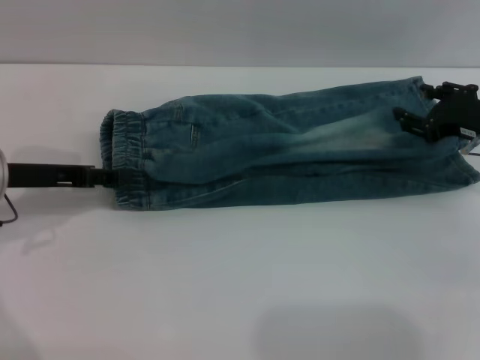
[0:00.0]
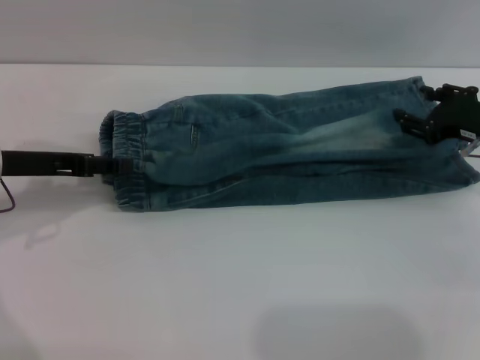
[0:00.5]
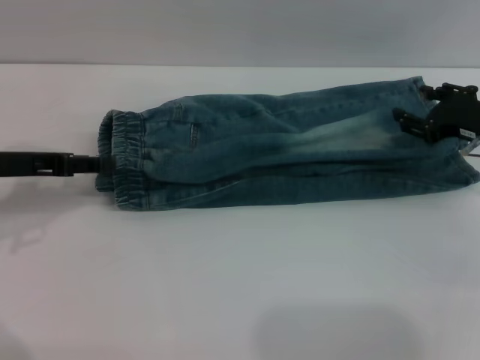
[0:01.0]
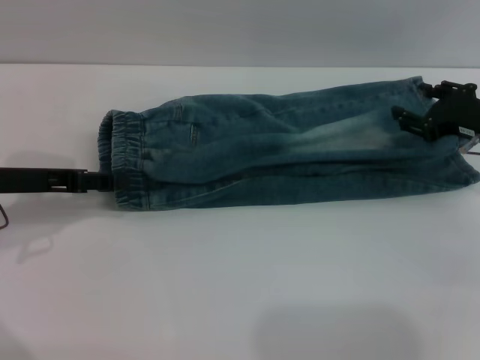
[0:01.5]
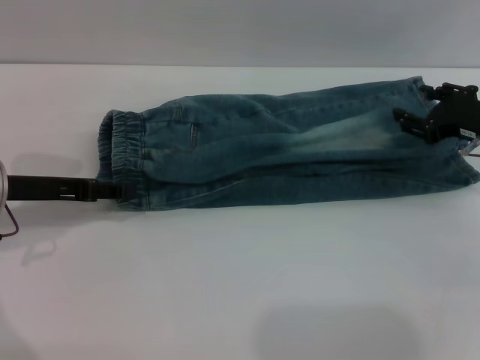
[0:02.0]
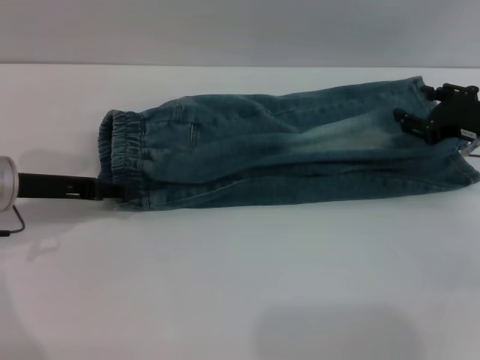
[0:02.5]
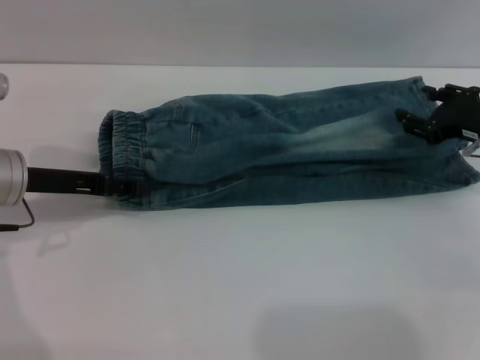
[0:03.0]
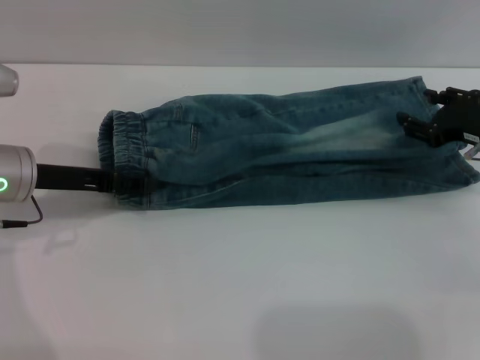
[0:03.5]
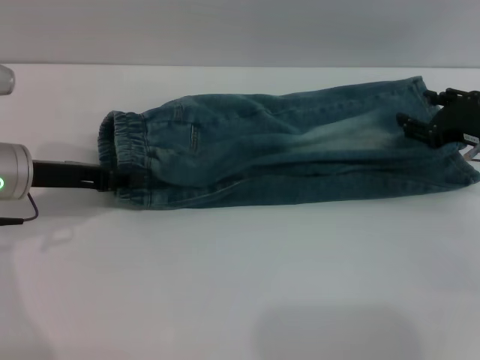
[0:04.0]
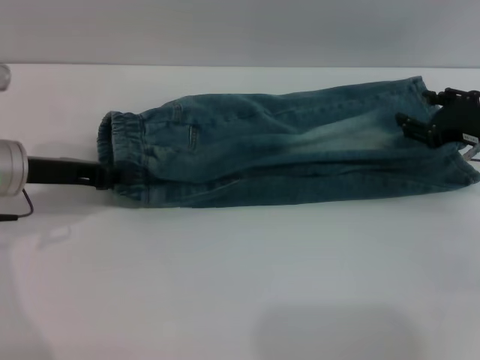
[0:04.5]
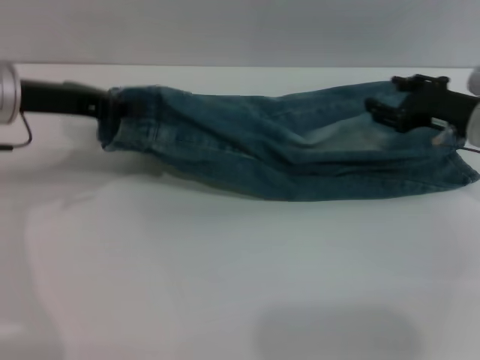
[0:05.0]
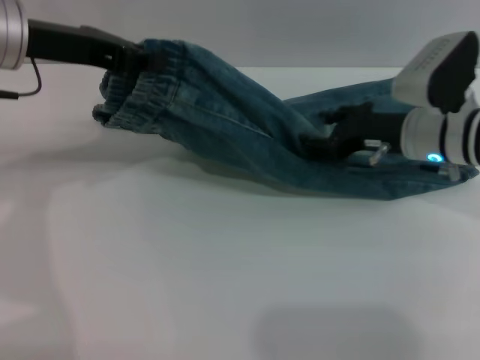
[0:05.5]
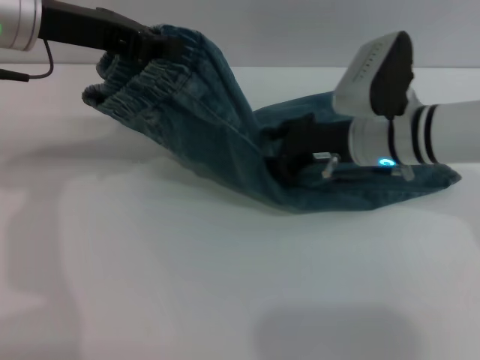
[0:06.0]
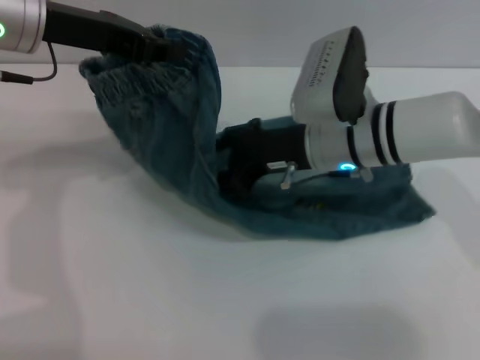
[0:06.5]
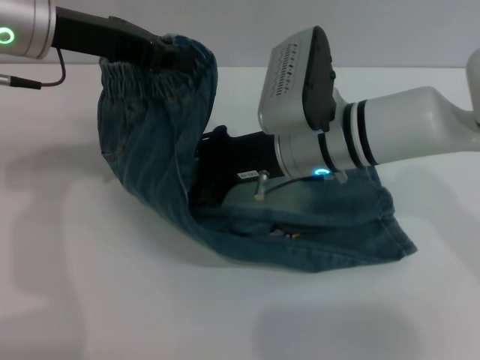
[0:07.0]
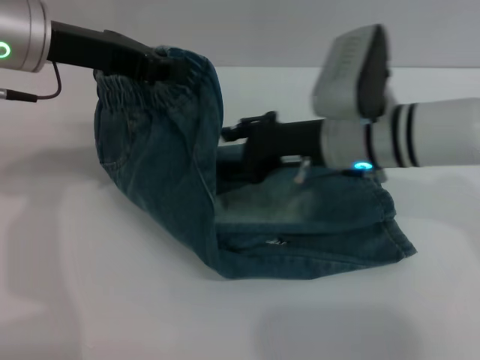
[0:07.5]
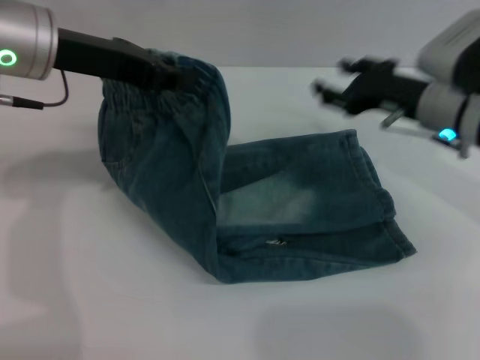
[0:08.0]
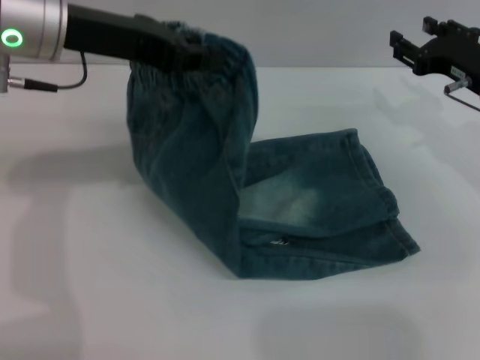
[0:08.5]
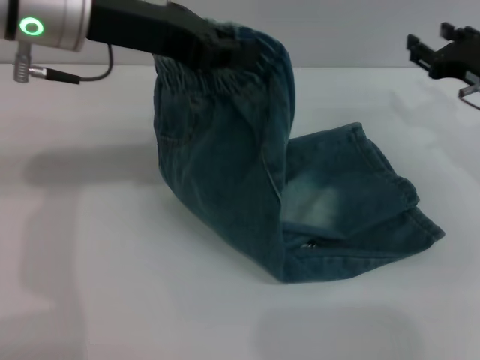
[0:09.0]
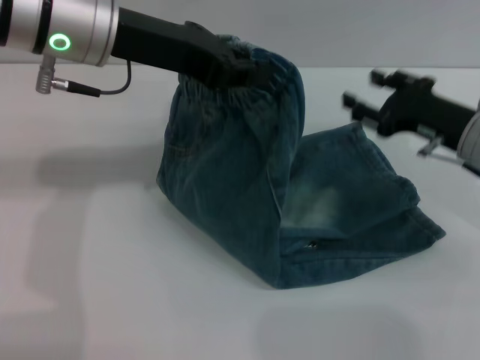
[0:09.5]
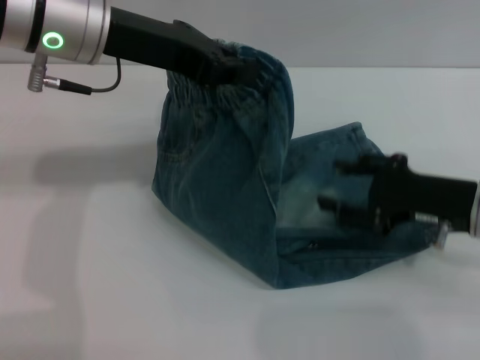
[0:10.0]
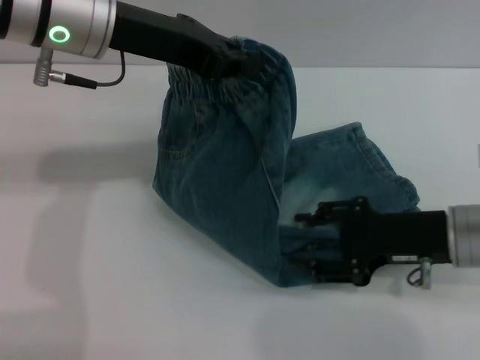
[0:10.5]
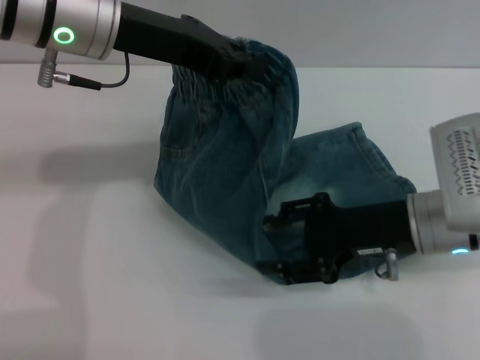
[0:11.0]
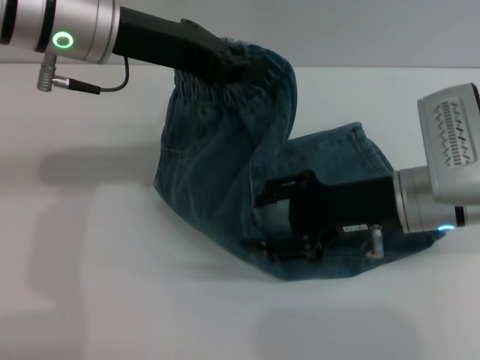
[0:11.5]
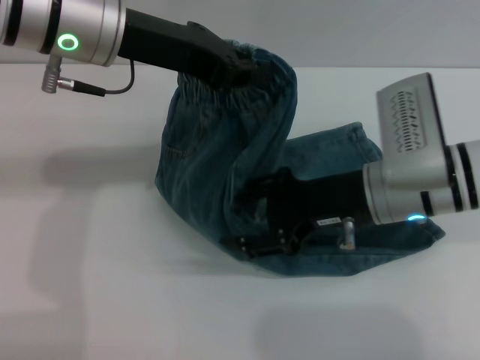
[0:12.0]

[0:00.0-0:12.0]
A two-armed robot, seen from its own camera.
0:00.0 to 0:04.0: The grippers move only a little.
0:04.0 to 0:06.0: The left gripper travels upward by some 15 cm, and closes; the right gripper travels to the left by roughly 15 cm.
0:06.0 to 0:08.0: The right gripper heads to the right, covering approximately 5 cm.
0:08.0 to 0:10.0: The right gripper travels backward by some 10 cm.
0:10.0 to 0:12.0: The right gripper travels to the left by some 10 cm.

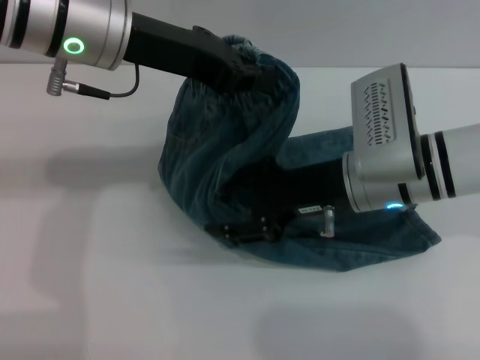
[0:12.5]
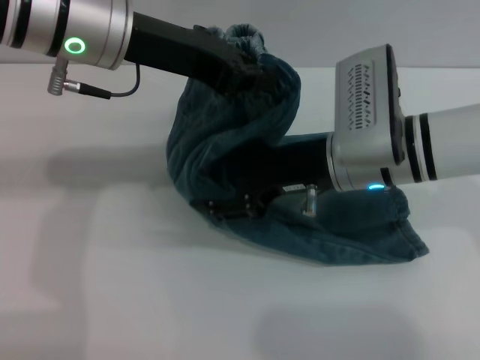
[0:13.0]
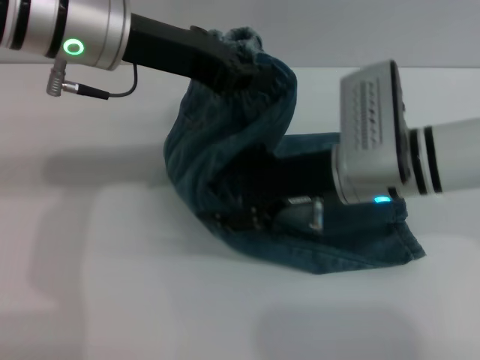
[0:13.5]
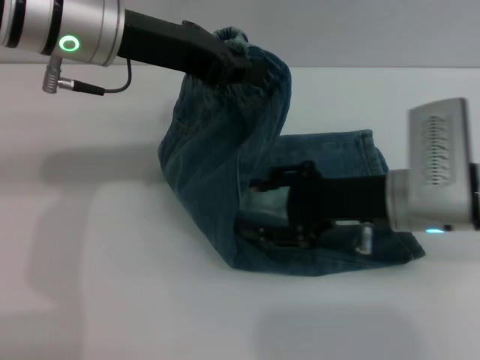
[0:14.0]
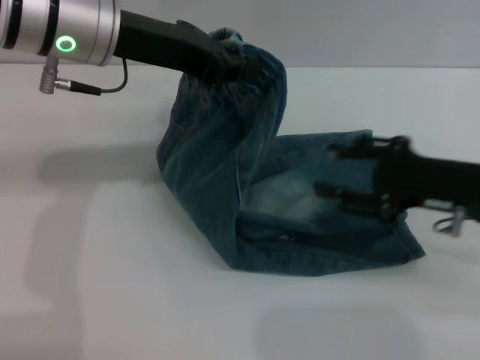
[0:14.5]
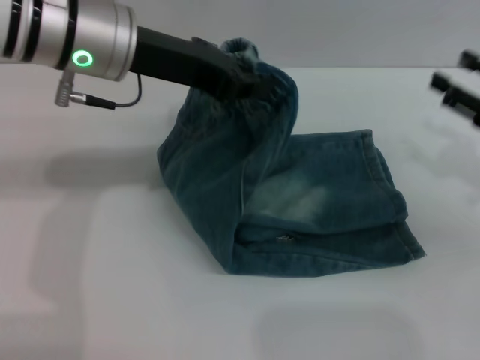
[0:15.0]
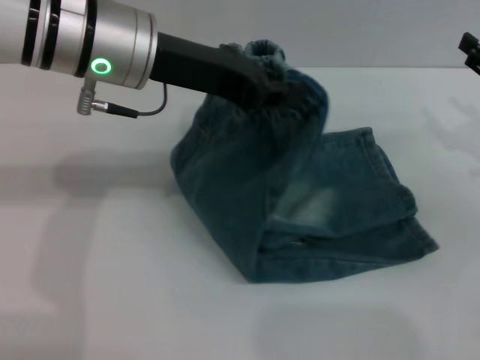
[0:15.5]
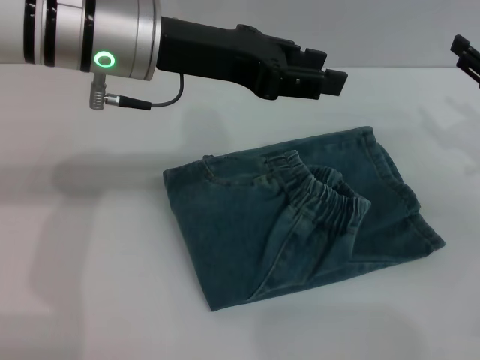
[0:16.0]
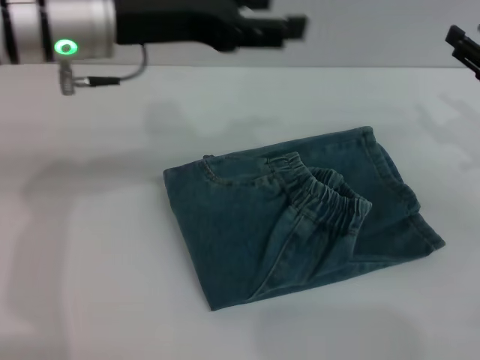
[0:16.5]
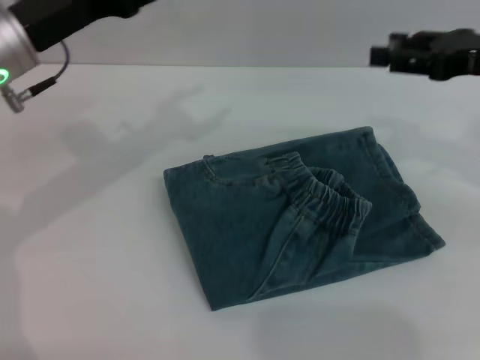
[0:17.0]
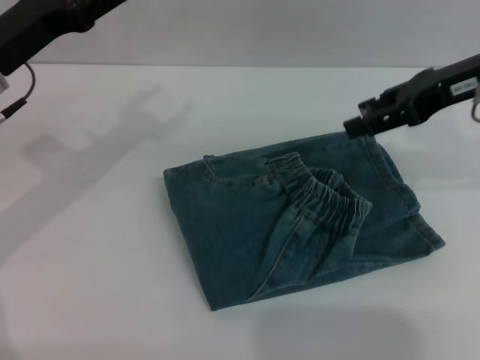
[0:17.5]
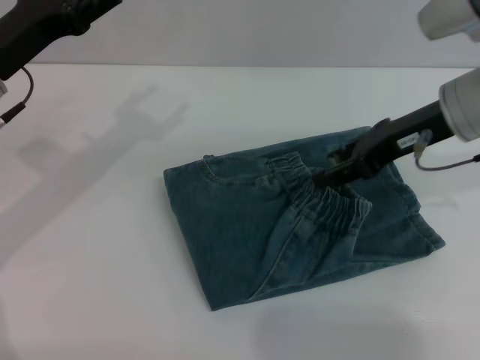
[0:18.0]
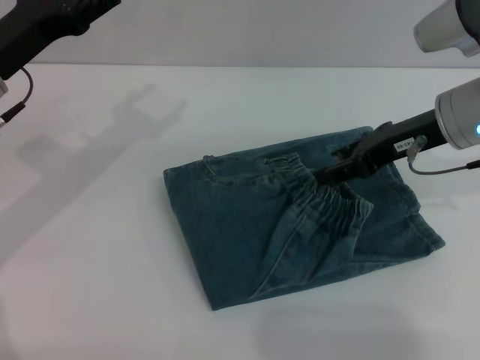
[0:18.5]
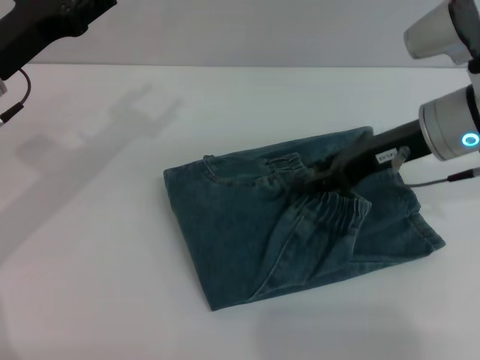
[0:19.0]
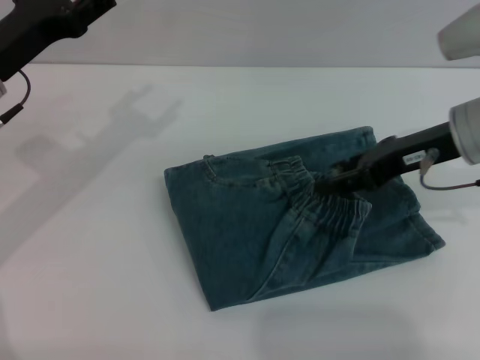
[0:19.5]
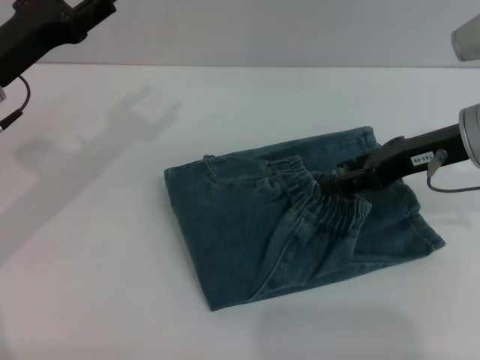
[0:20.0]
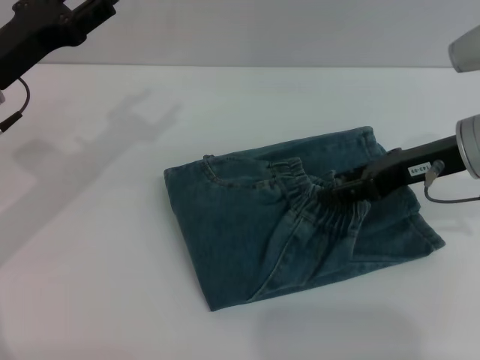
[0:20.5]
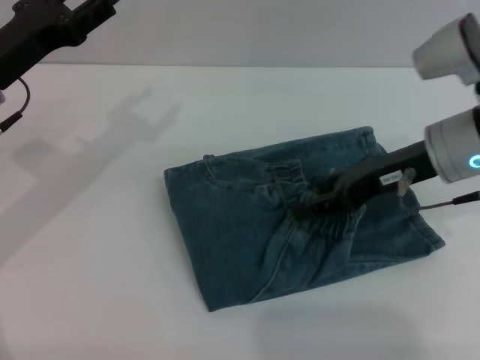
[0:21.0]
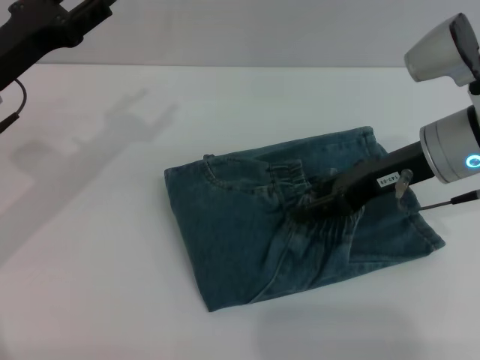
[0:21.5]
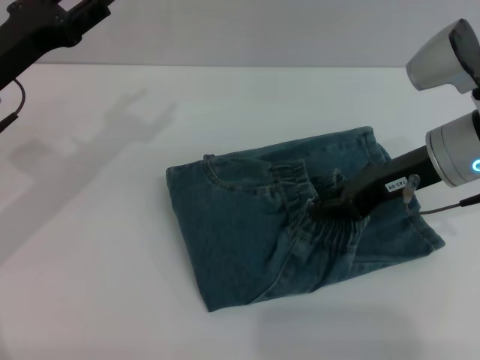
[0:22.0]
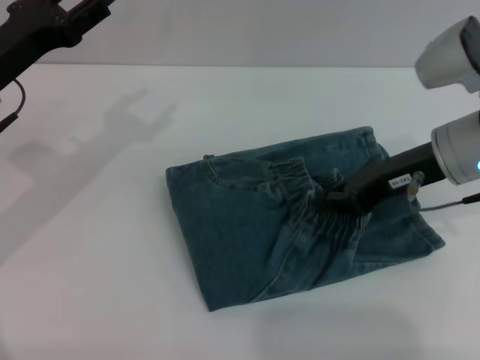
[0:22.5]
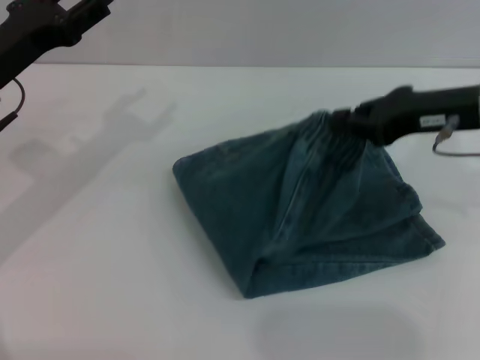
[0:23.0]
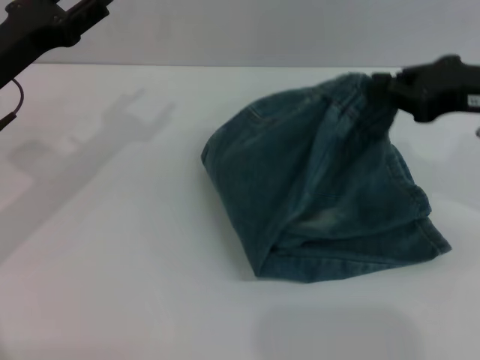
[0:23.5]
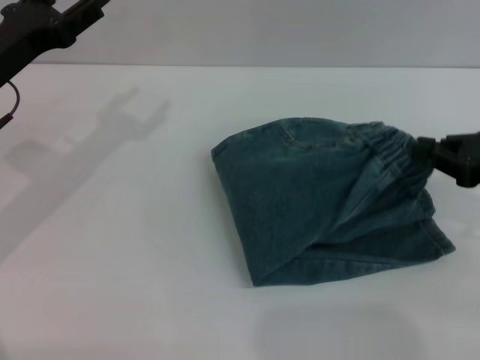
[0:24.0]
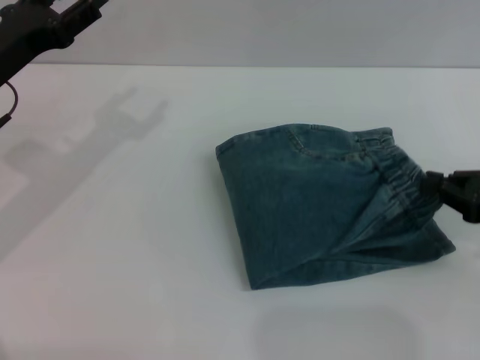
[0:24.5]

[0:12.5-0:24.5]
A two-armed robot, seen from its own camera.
Step, 0:12.5 to 0:15.5: Fold the pants from left to right with the left gripper.
0:12.5 to 0:14.5: The right gripper heads to the right, covering approximately 10 cm.
0:14.5 to 0:16.5: The right gripper shifts about 10 cm to the right and forward. Meanwhile the left gripper opens up.
0:16.5 to 0:18.5: The right gripper moves to the left, about 10 cm; the left gripper travels to the left and downward by about 15 cm.
0:18.5 to 0:20.5: The grippers move only a little.
0:20.5 to 0:22.5: The right gripper closes.
0:22.5 to 0:24.5: The right gripper heads to the right and backward, covering about 15 cm.

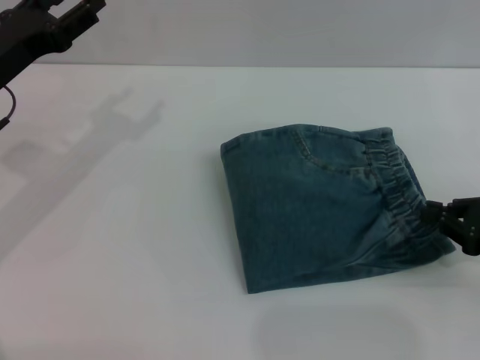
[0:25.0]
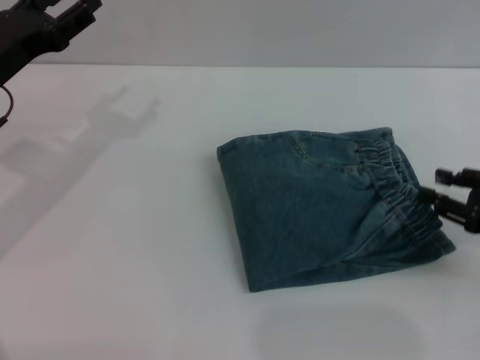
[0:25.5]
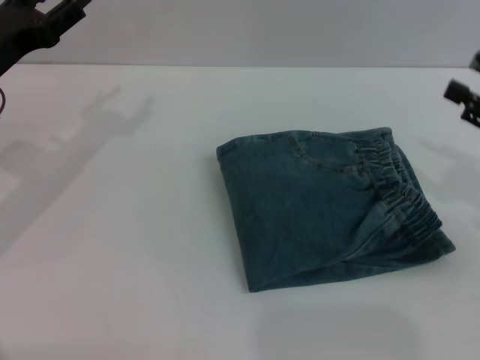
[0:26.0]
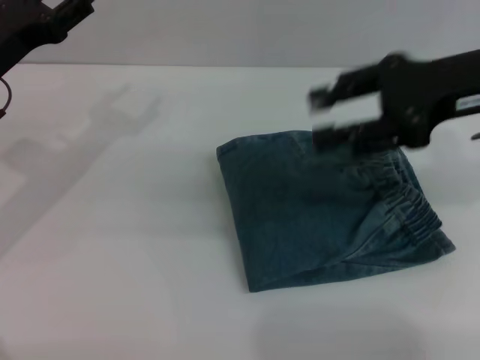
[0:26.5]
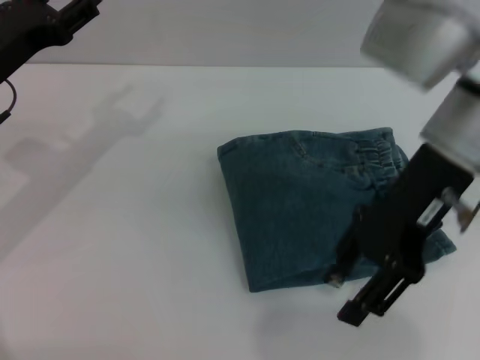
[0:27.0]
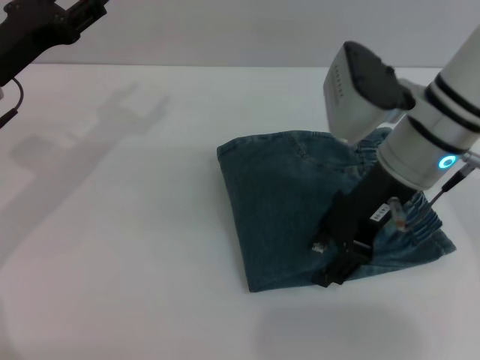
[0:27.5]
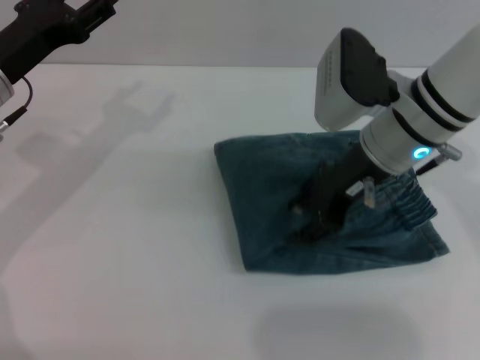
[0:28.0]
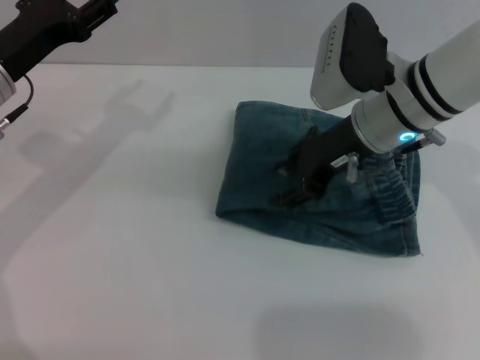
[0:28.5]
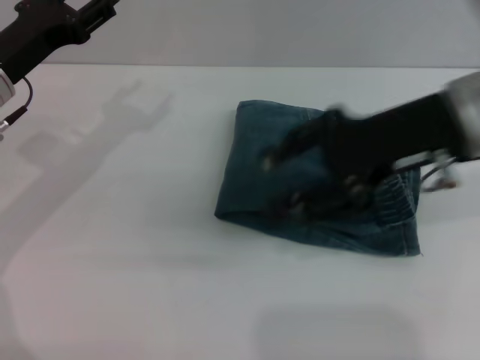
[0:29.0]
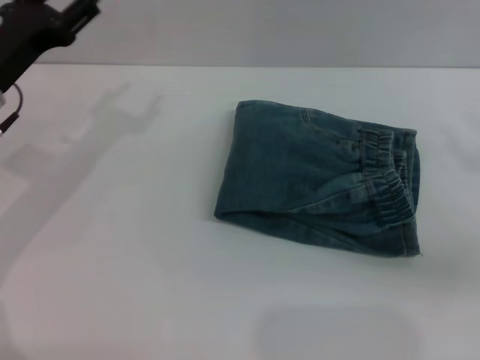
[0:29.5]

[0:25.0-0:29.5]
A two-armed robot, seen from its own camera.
Step, 0:25.0 to 0:28.5: Place the folded trousers onto the center area with the right grippers.
0:25.0 to 0:27.0: The right gripper heads to the left, upward and forward, covering about 25 cm, and opens.
0:27.0 to 0:29.5: The right gripper moves to the right, roughly 20 cm.
